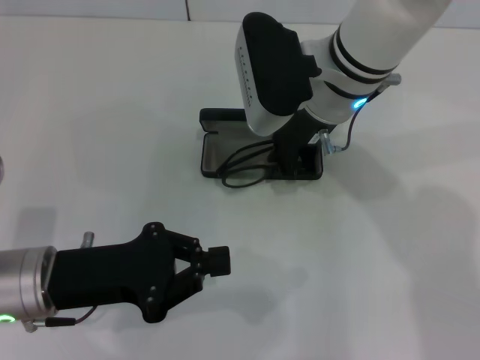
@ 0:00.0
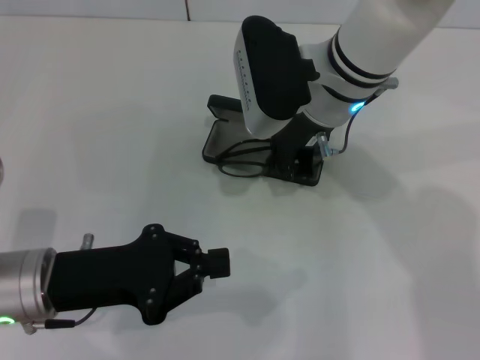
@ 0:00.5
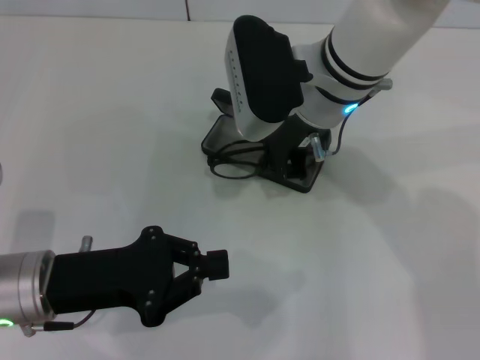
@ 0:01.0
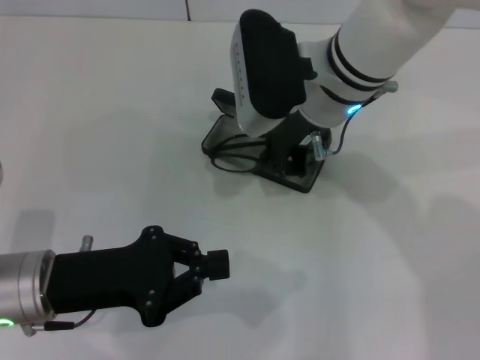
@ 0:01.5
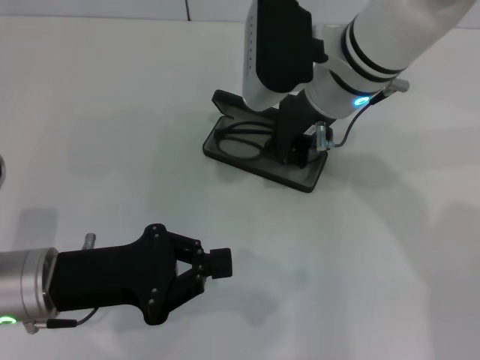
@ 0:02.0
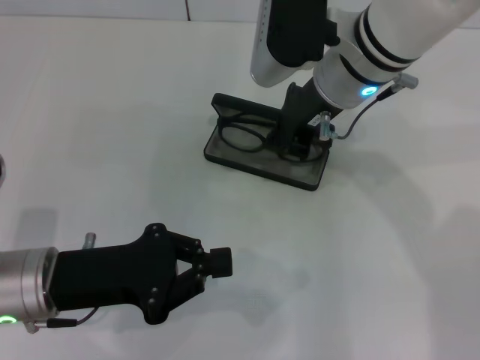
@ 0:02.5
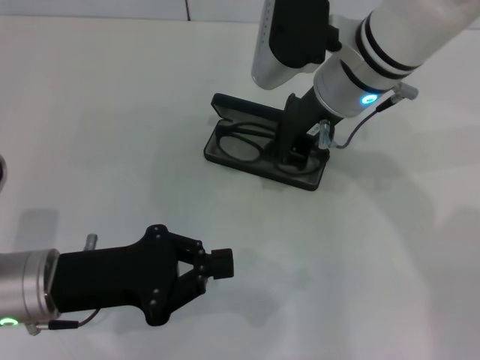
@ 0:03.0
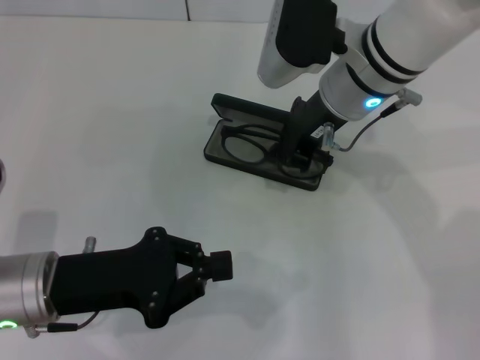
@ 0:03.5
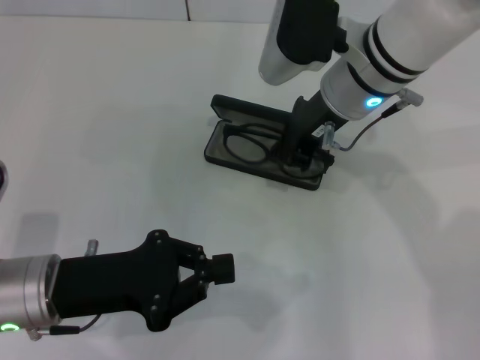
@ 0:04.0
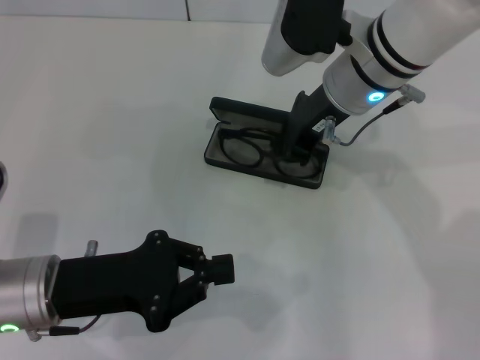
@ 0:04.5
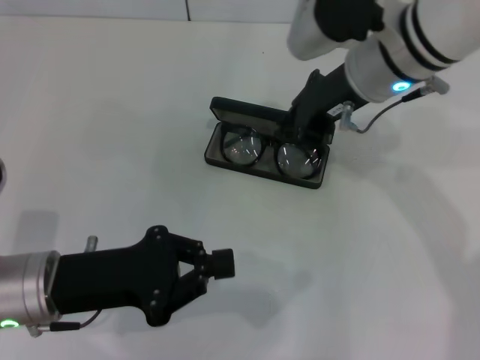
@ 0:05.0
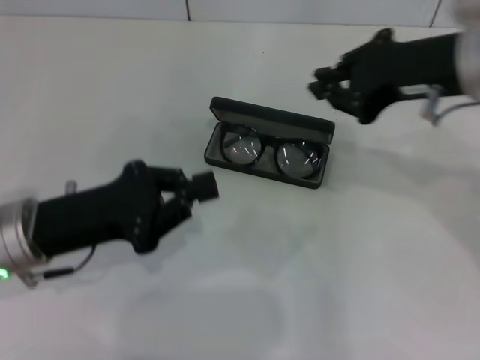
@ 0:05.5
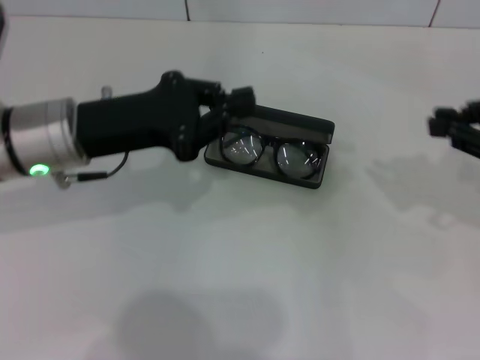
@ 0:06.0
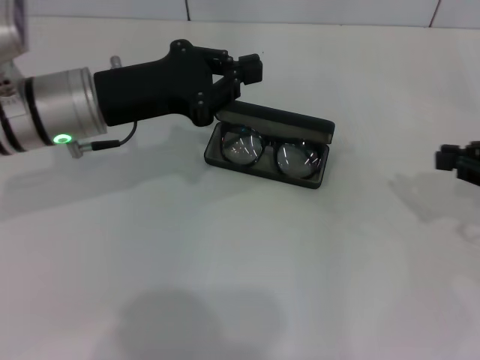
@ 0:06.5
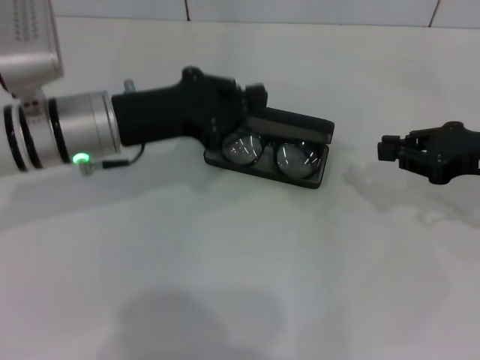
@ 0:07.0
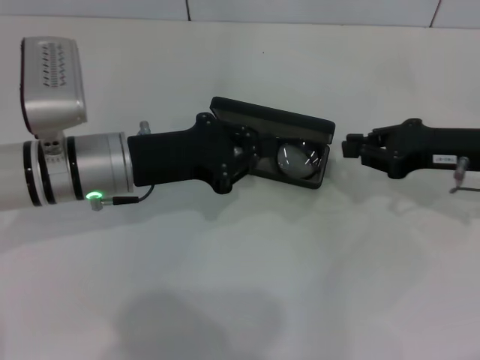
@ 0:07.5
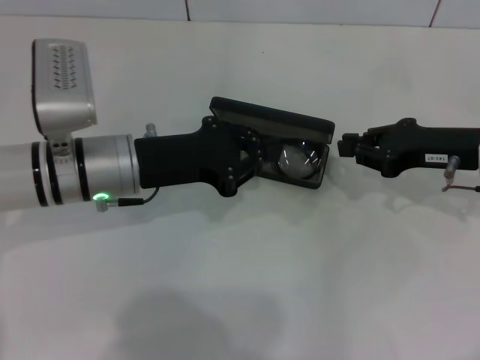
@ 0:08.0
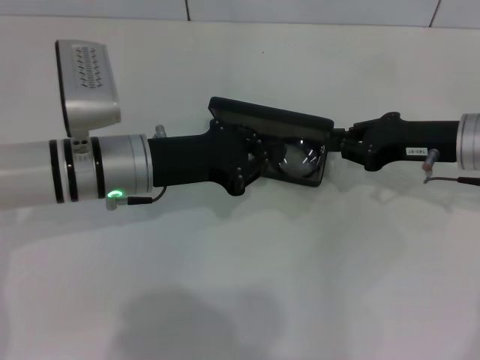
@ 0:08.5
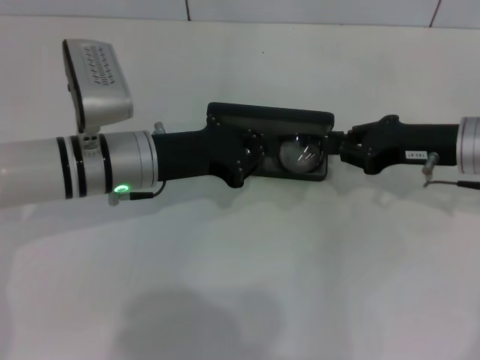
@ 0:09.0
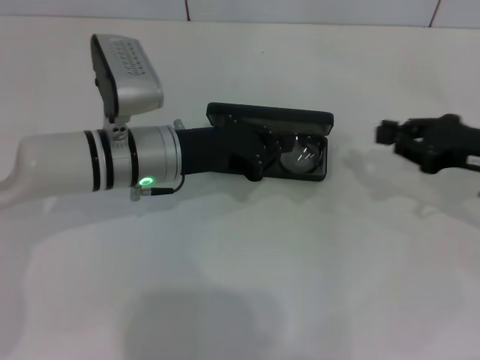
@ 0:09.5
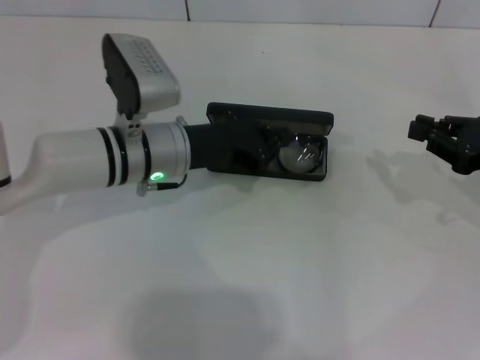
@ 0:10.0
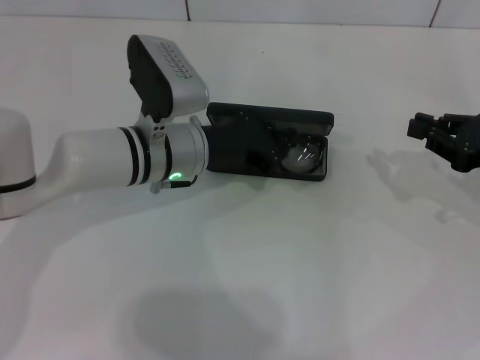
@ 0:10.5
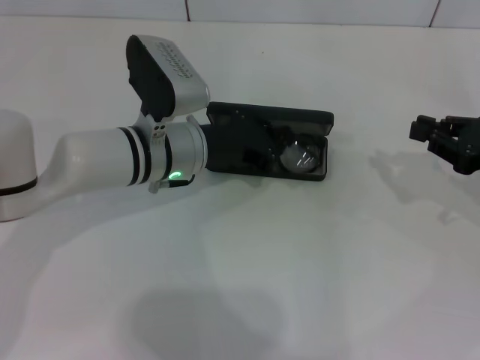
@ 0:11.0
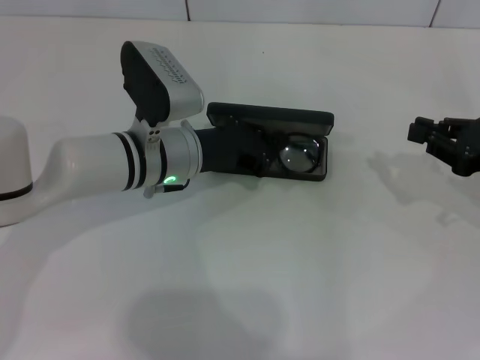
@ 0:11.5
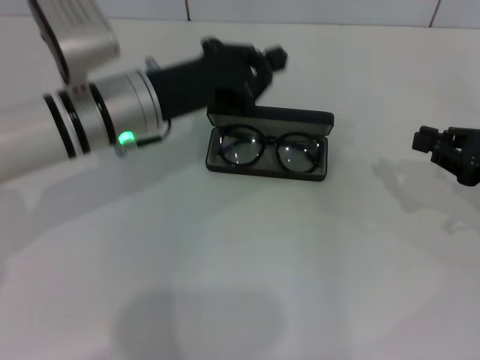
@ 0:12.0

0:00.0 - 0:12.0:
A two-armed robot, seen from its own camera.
Step, 0:00.0 - 0:04.5: Put the glasses into the case with your right hand.
0:00.0 - 0:02.0: The grippers move only a little.
0:02.0 - 0:04.0: The grippers move only a little.
0:04.0 - 0:06.0: The left gripper moves forward and upward, roughly 10 cm. Meanwhile the right gripper goes approximately 25 cm to the right and backward.
0:06.0 - 0:08.0: The left gripper changes place by about 5 cm. The right gripper moves downward, forward and to the left, about 15 cm.
0:08.0 - 0:10.0: The right gripper heads to the right, covering some 5 cm. Meanwhile the left gripper shifts by roughly 5 cm.
0:10.0 - 0:12.0: The left gripper goes some 5 cm upward.

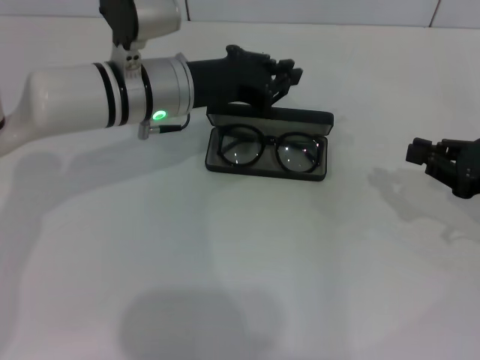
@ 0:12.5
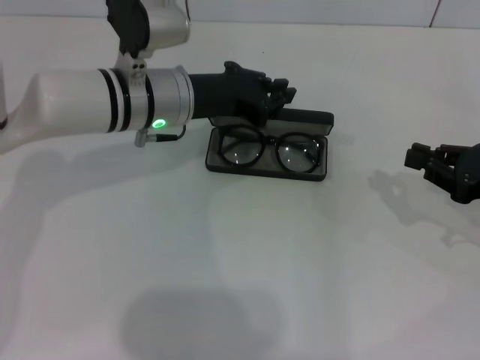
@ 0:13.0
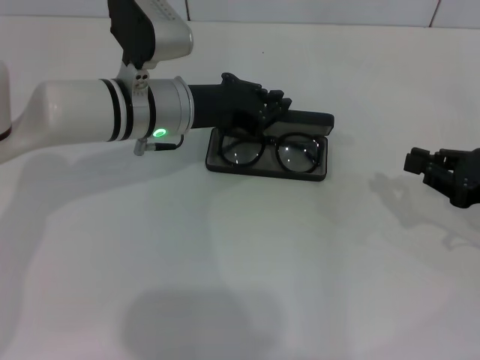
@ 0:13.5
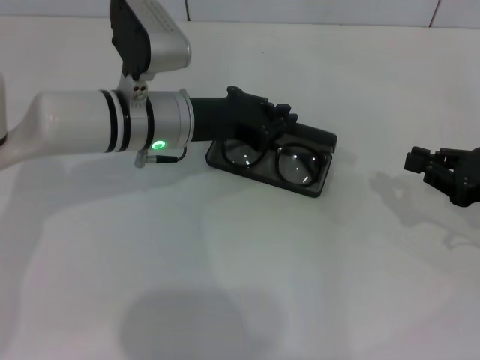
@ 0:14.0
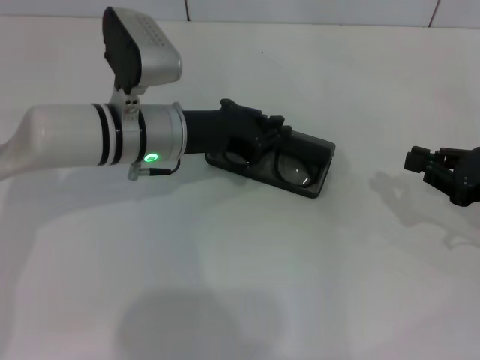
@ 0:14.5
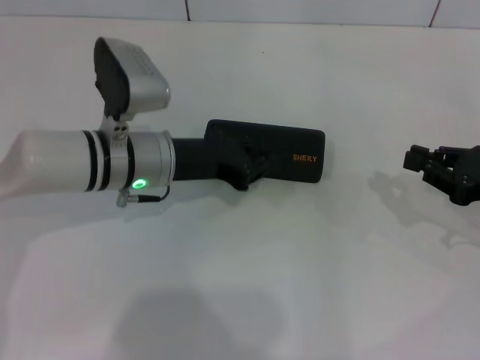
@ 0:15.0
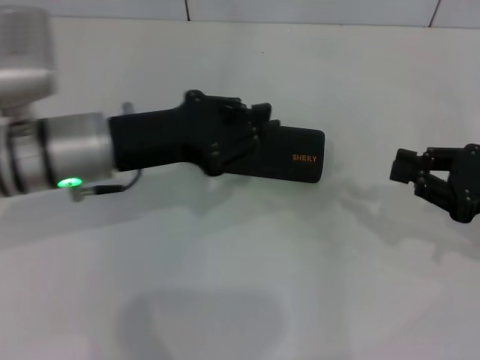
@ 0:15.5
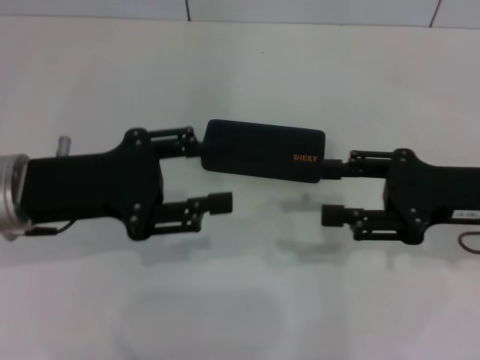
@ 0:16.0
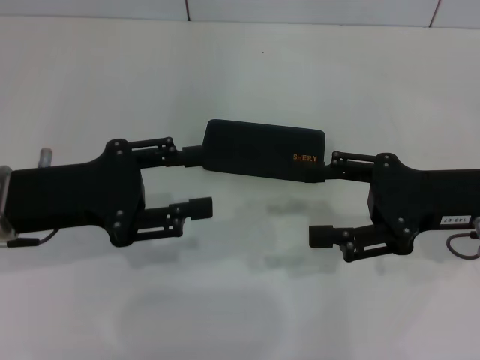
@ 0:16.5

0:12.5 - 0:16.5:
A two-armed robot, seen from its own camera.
Step, 0:12.5 - 0:14.5: Close the glasses case with your left hand.
0:12.5 - 0:14.5: The grippers stay close to where they were, moving slightly.
0:14.5 - 0:16.5: The right gripper heads to the left, covering roughly 10 cm, and opens its fingers. Meanwhile the left gripper travels to the left and backward by roughly 15 cm, and opens.
